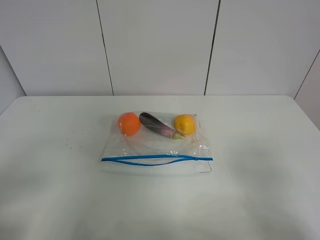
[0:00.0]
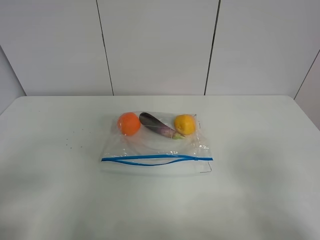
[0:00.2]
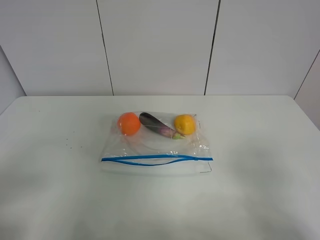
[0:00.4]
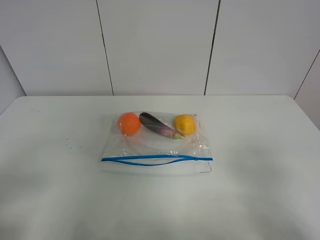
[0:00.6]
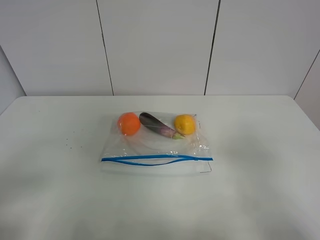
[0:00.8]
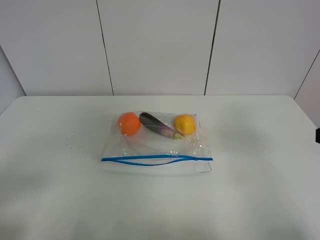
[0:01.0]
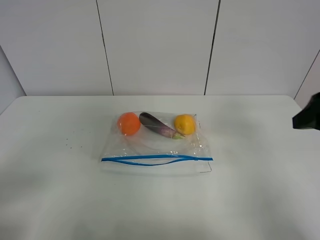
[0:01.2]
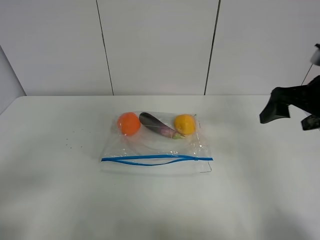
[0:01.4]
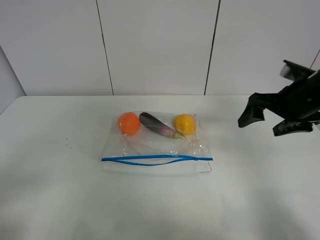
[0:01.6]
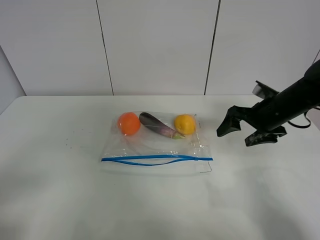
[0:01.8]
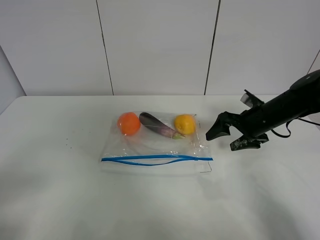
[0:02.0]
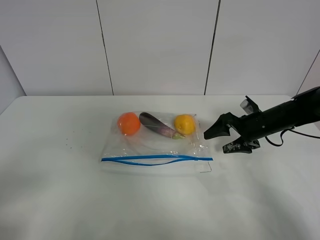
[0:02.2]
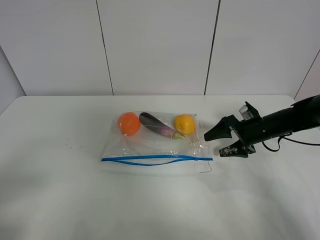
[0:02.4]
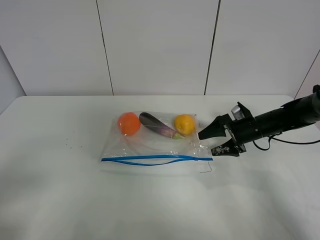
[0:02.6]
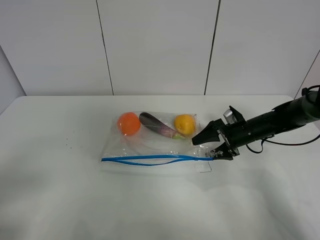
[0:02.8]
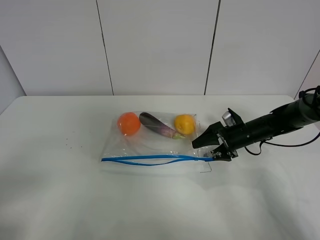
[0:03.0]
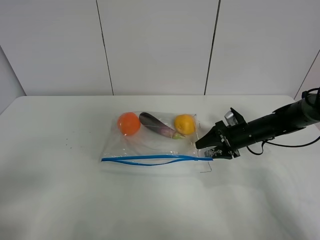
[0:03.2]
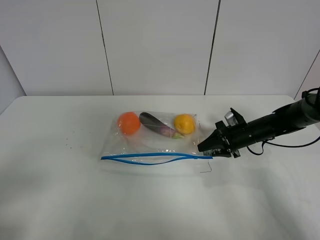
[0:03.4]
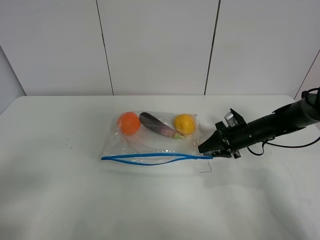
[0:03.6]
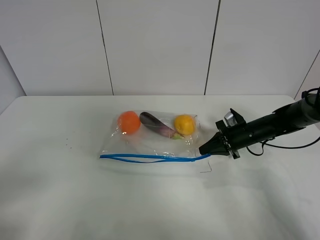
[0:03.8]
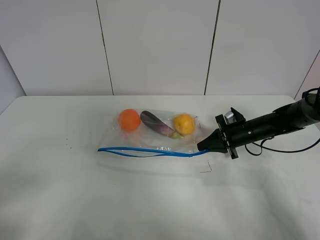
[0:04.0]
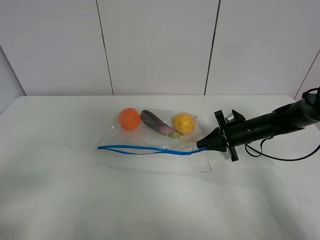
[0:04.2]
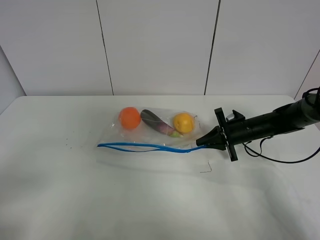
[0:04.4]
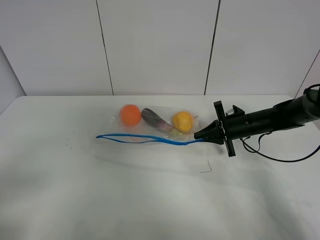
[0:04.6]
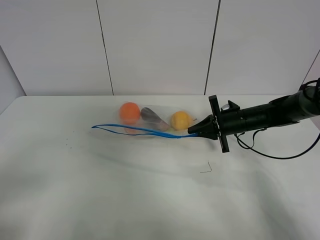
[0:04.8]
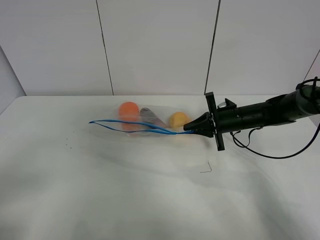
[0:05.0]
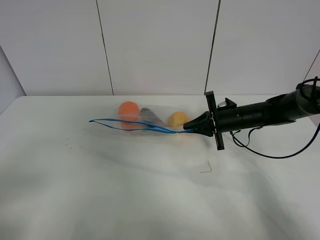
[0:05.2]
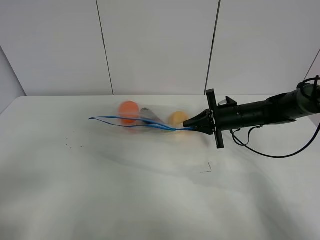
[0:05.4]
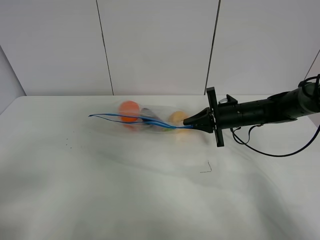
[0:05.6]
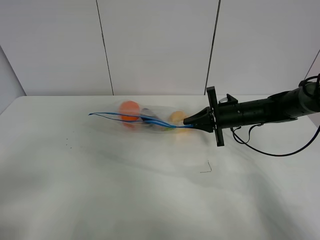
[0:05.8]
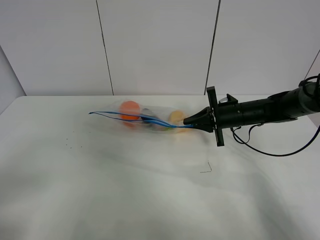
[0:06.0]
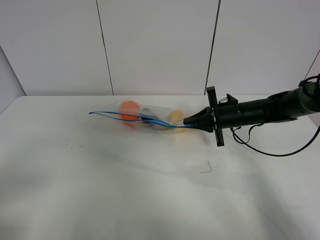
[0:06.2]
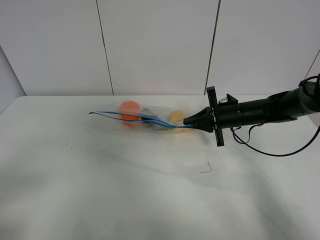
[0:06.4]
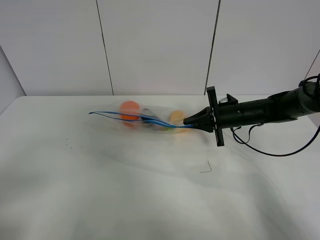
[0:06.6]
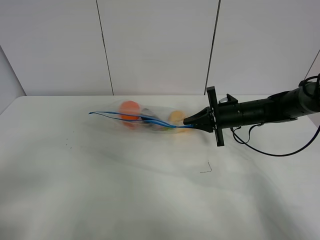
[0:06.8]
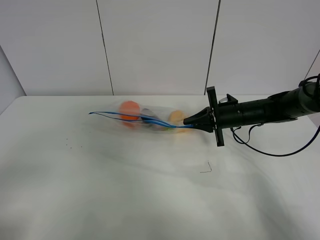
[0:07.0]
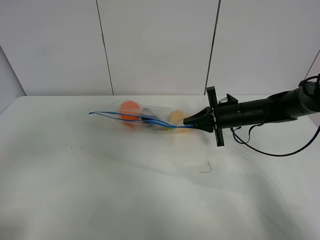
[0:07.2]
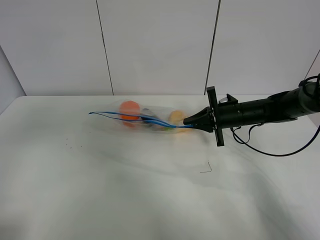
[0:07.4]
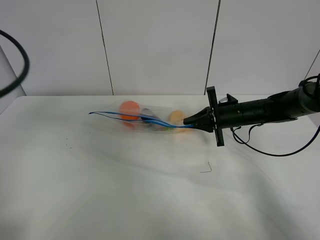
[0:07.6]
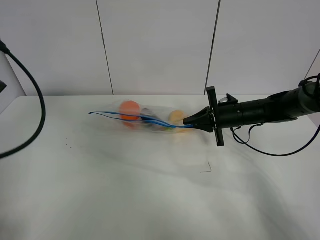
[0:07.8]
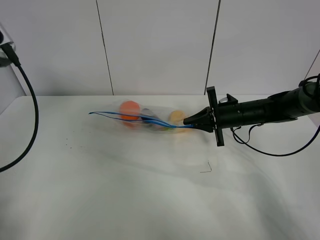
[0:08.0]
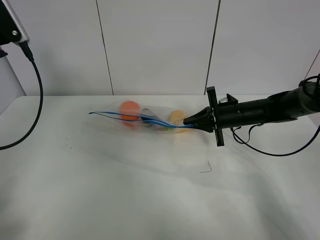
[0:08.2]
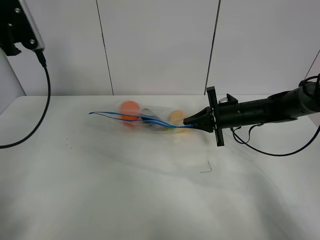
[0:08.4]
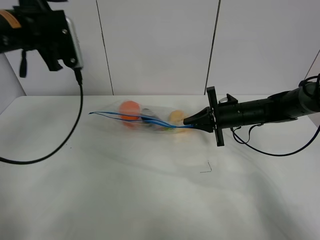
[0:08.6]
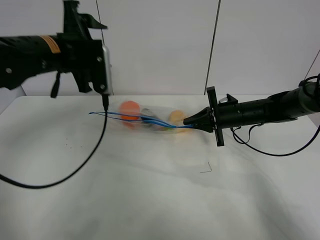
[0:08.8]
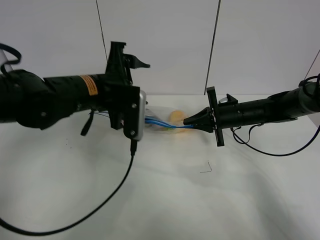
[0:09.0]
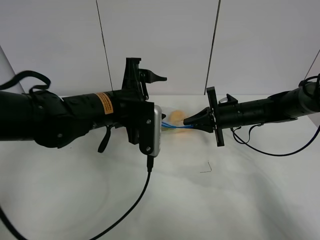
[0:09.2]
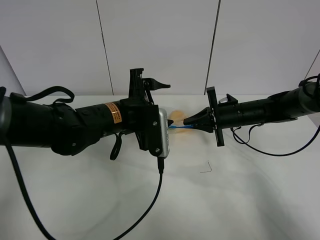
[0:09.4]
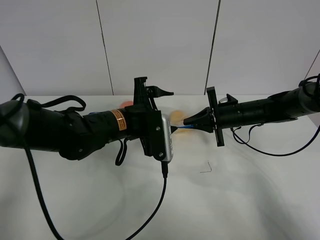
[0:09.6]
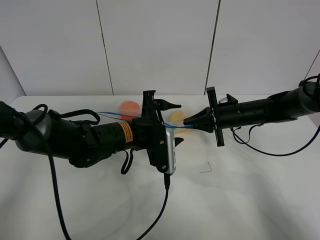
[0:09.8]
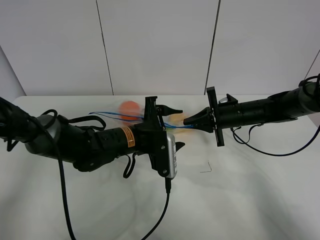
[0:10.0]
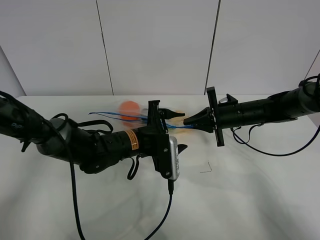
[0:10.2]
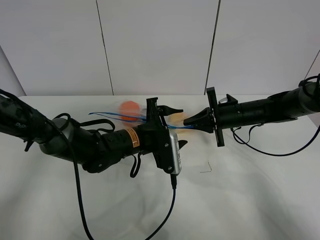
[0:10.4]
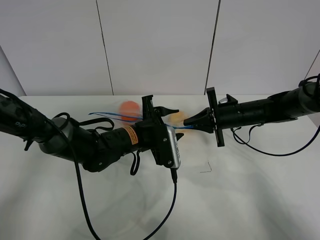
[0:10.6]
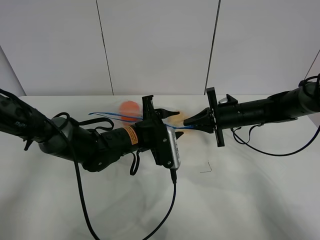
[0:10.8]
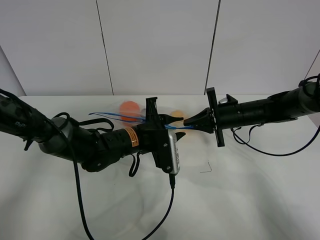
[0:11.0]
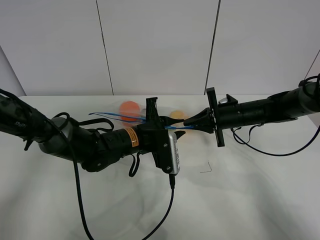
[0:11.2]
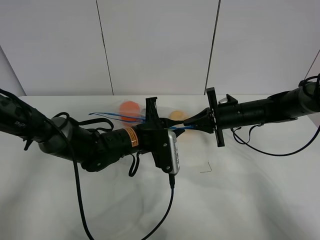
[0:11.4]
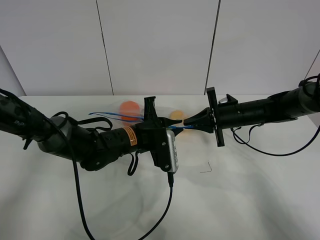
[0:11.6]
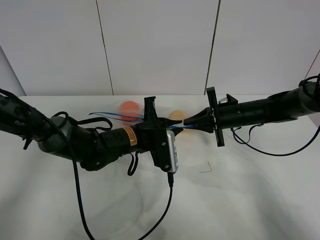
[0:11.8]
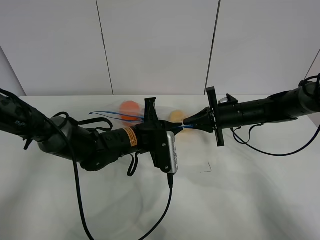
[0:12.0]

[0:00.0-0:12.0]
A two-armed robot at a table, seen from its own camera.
Step, 0:00.0 to 0:03.6: Grasp the fruit bag with right gripper.
Step, 0:03.8 to 0:06.4: Lift the fruit bag with your right gripper.
0:00.0 to 0:01.6: The right gripper moves forward, some 30 cm.
0:01.6 to 0:03.0: The right gripper travels downward and forward by roughly 20 cm.
0:03.0 to 0:04.4: The right gripper closes up.
0:04.4 to 0:06.0: The right gripper shifts by about 5 cm.
0:06.0 to 0:07.6: The left gripper shifts approximately 20 cm forward and upward.
0:07.6 to 0:09.0: The left gripper is displaced to the right, downward and forward by about 25 cm.
0:09.0 to 0:10.4: The left gripper moves downward and to the right, approximately 15 cm.
0:10.4 to 0:12.0: The left gripper closes.

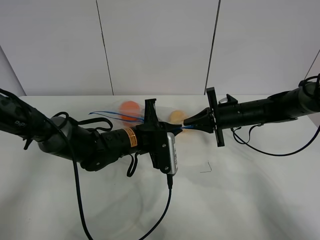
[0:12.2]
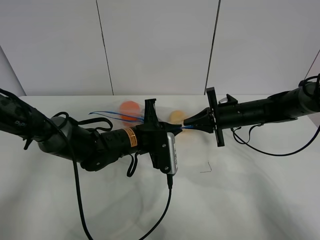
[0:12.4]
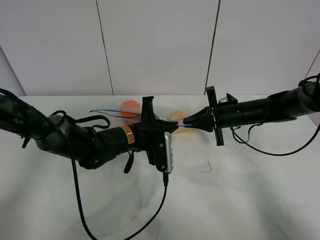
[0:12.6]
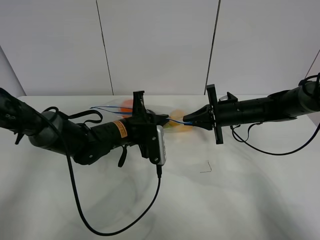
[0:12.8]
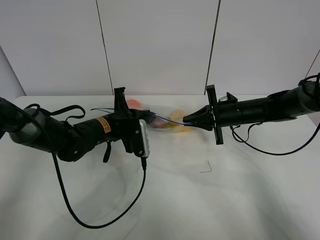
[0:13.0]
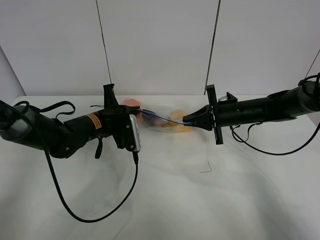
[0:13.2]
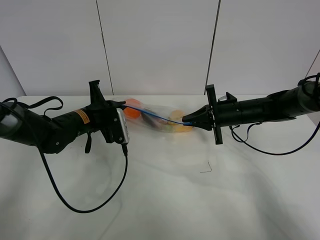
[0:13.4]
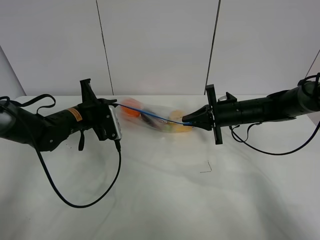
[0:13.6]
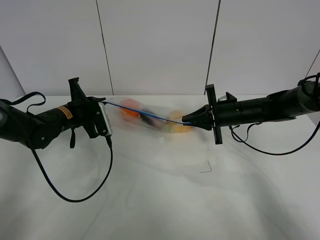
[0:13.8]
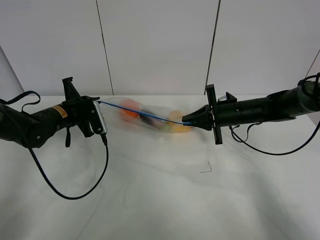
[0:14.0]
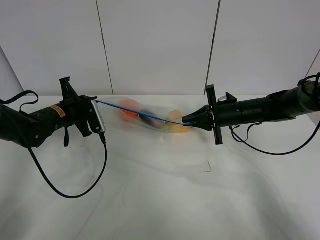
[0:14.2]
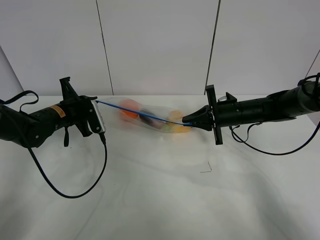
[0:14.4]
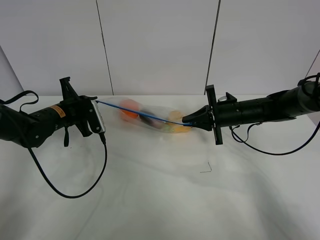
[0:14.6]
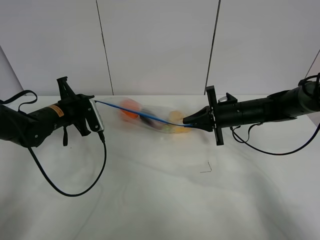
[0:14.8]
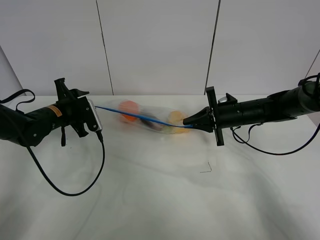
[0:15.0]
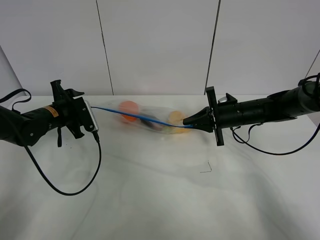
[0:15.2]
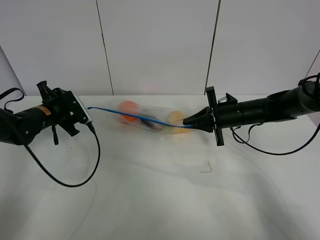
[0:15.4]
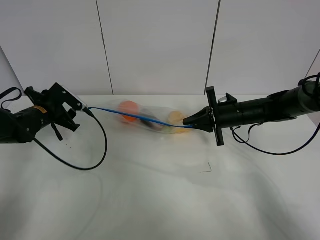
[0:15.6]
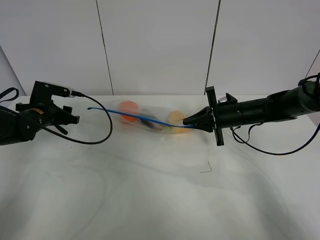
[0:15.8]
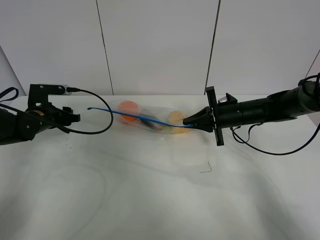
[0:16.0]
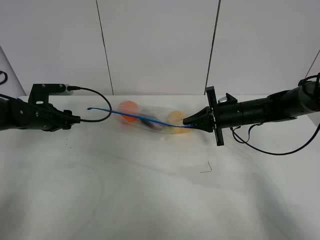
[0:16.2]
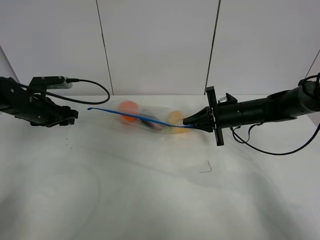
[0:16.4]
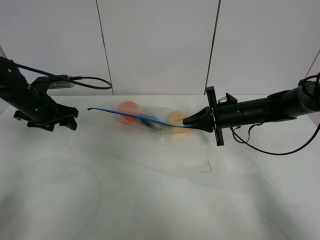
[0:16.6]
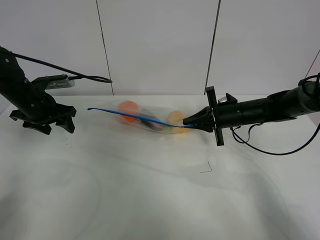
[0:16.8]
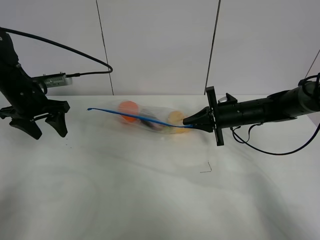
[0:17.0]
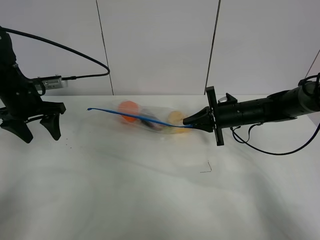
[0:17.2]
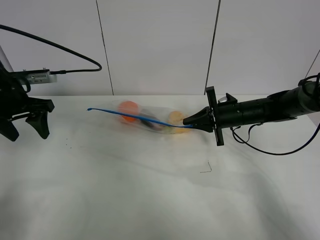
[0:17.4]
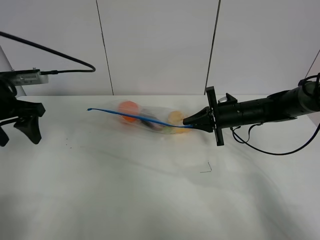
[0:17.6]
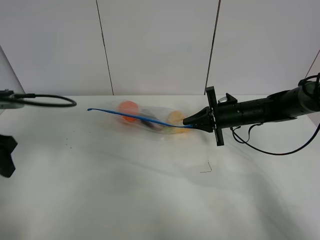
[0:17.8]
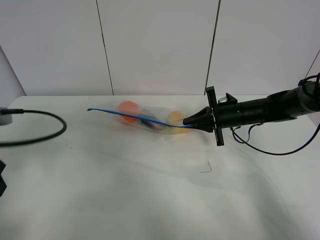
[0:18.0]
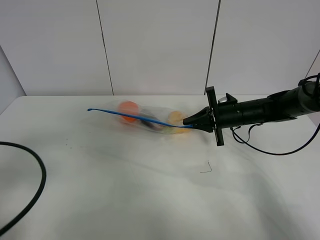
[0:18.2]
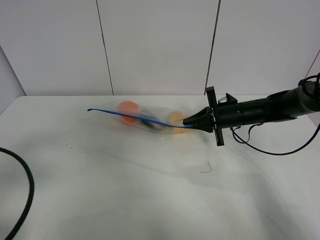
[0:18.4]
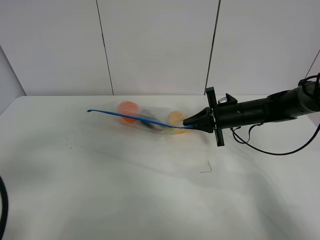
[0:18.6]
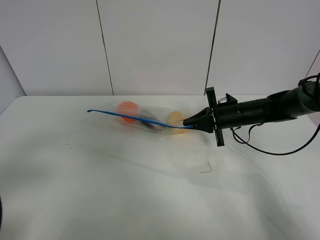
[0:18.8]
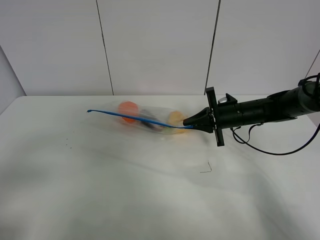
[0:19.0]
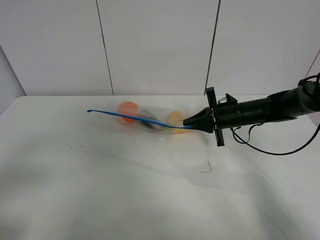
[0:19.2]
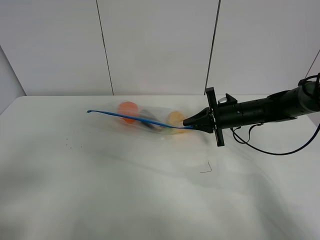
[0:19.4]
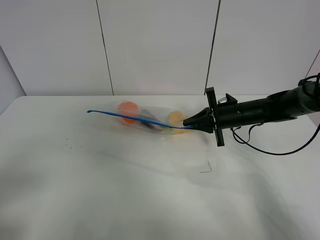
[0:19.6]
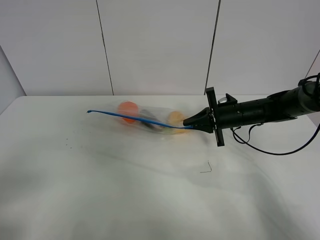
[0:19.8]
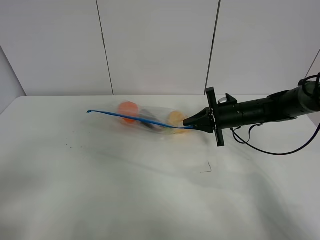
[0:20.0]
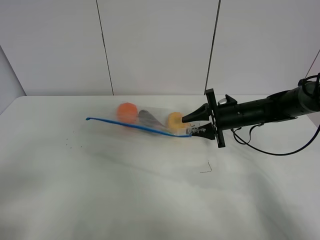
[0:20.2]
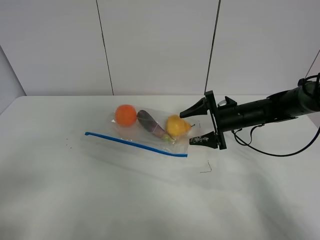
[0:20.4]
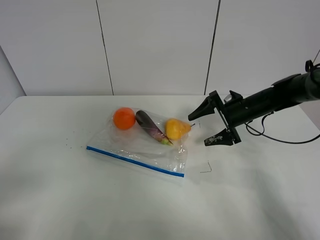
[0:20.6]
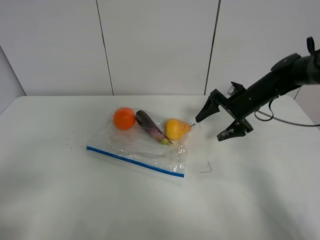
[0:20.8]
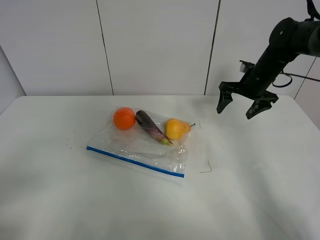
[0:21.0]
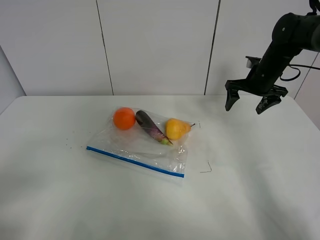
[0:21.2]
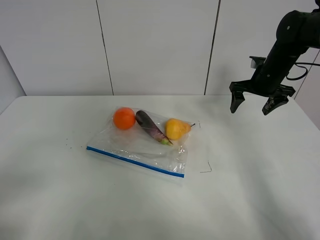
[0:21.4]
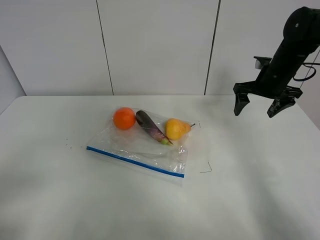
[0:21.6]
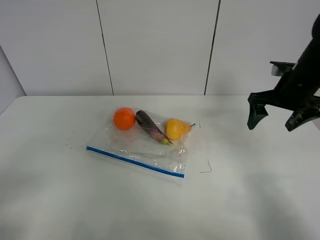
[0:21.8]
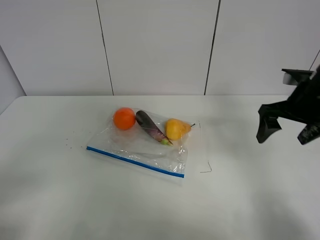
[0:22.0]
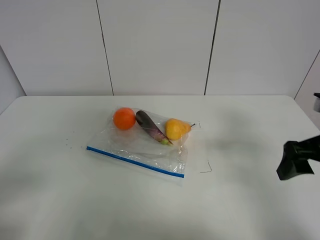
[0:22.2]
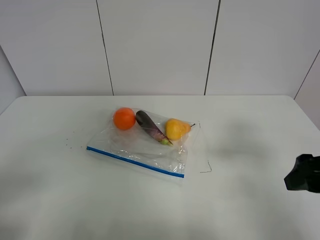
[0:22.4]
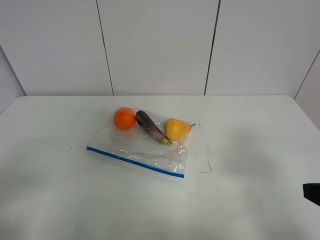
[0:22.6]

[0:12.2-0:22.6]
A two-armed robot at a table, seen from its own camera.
Step, 0:12.2 to 0:15.0: Pull the fruit bag with left gripper.
0:12.2 to 0:13.6: The left gripper is displaced to the left and forward by some 15 cm.
0:13.6 to 0:15.2: The left gripper travels to the left by some 5 cm, and opens up.
0:15.2 to 0:16.6: The left gripper shifts by roughly 5 cm.
0:16.6 to 0:18.2: The left gripper moves backward, about 25 cm.
0:18.2 to 0:19.6: The left gripper goes approximately 10 cm backward.
0:19.6 to 0:21.2: The right gripper travels upward, forward and to the right by approximately 10 cm, and opens up.
0:21.2 to 0:22.6: The right gripper heads backward, covering some 35 cm.
